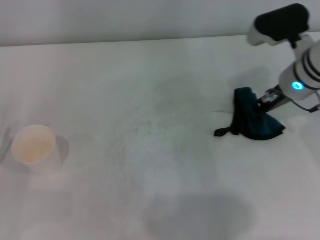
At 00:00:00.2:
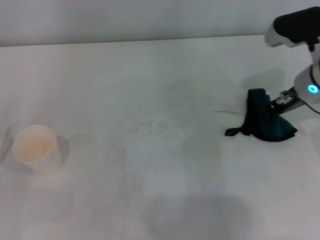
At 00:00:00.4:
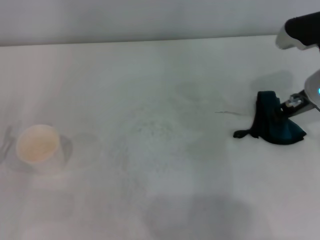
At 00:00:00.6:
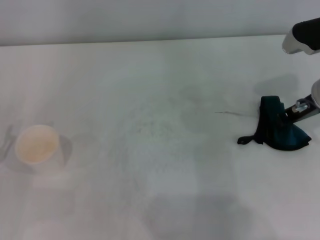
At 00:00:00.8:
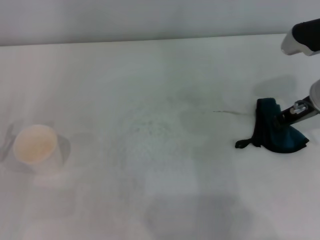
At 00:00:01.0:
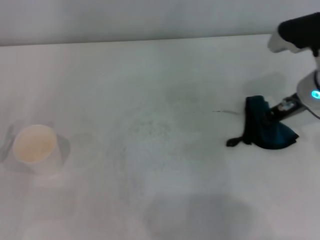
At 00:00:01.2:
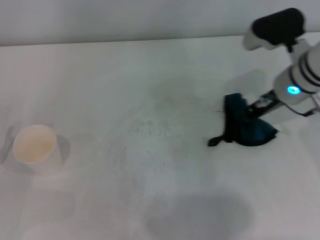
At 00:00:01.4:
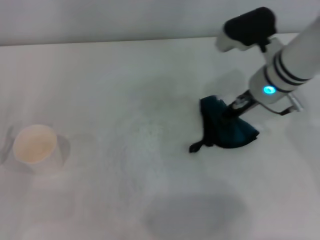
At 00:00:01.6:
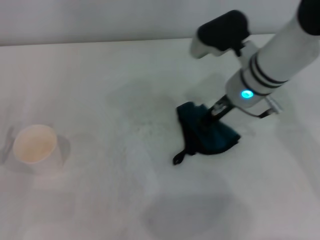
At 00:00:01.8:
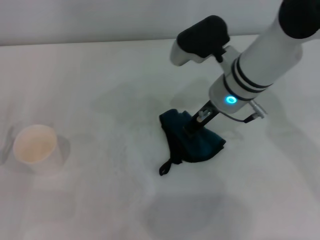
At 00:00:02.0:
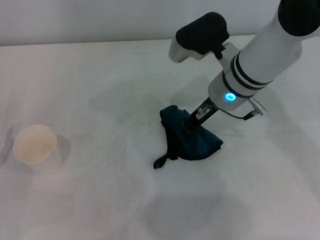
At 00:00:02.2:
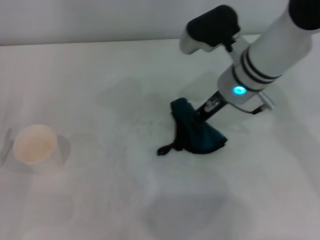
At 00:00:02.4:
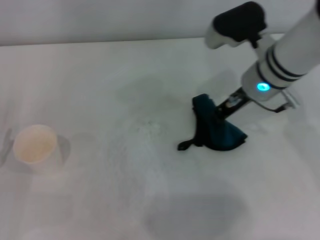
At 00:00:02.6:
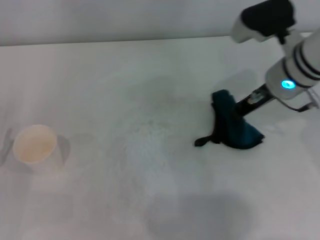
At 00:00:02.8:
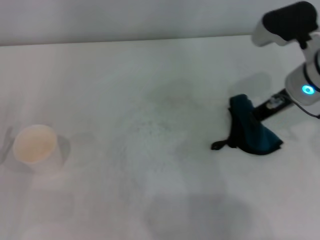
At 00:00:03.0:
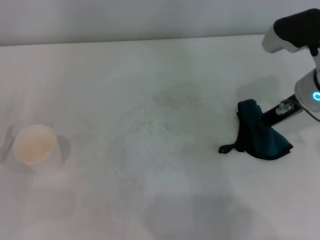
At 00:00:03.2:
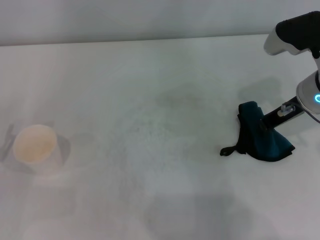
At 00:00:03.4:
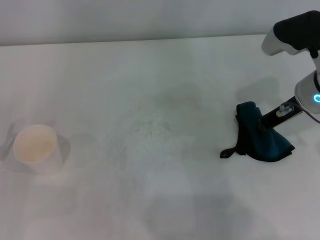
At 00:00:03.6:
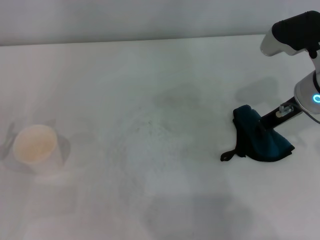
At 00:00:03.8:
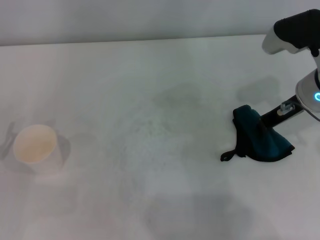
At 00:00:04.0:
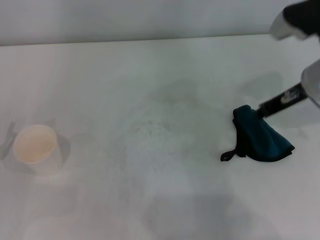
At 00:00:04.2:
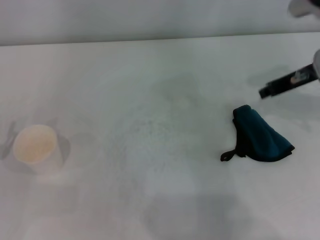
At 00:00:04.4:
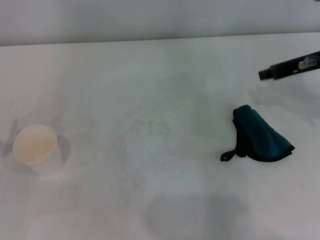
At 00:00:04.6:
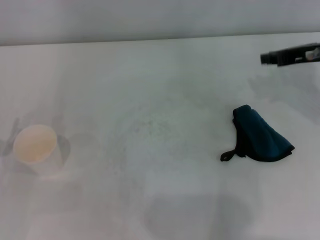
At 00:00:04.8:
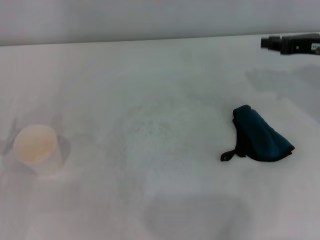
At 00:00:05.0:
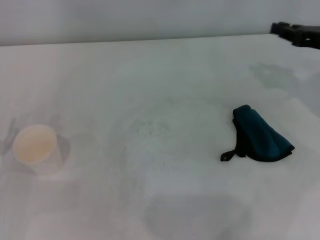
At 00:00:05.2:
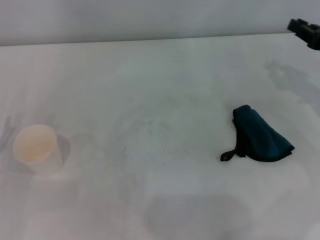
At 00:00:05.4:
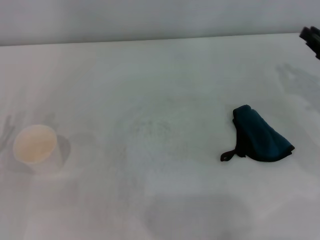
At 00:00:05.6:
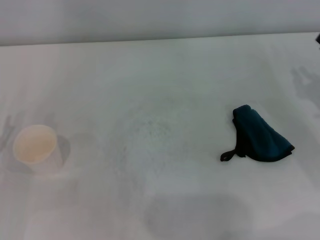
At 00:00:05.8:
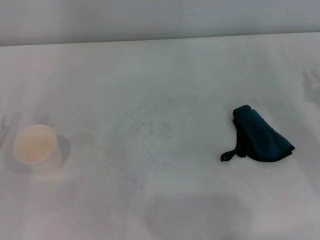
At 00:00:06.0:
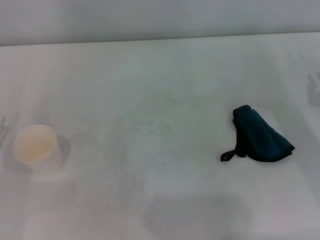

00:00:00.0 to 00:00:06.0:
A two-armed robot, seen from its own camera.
Step, 00:00:00.0 to 00:00:02.4: Wipe the stains off the table with the right gripper.
Step, 00:00:02.6 to 00:00:03.8: Place the rag on the table with the right gripper.
00:00:00.0 to 00:00:01.6: The right gripper heads to the left, covering approximately 10 cm.
00:00:01.6 to 00:00:03.0: The right gripper shifts roughly 10 cm to the right.
00:00:03.0 to 00:00:04.4: The right gripper changes place by about 5 cm, and opens its fingers.
00:00:04.4 to 00:00:06.0: The right gripper is displaced downward, backward and to the right by some 20 cm.
